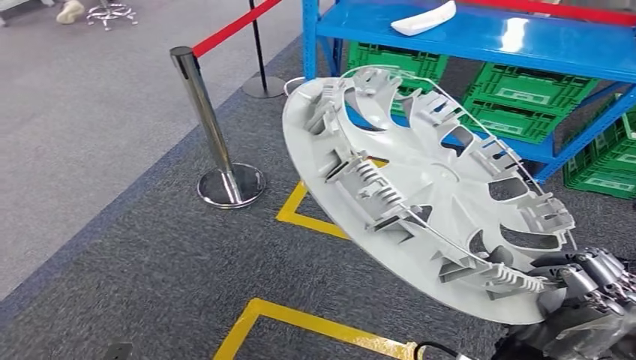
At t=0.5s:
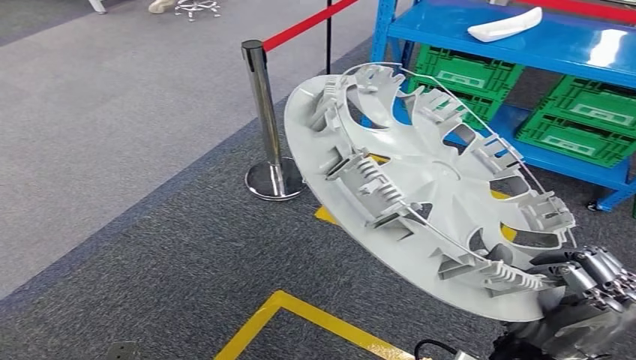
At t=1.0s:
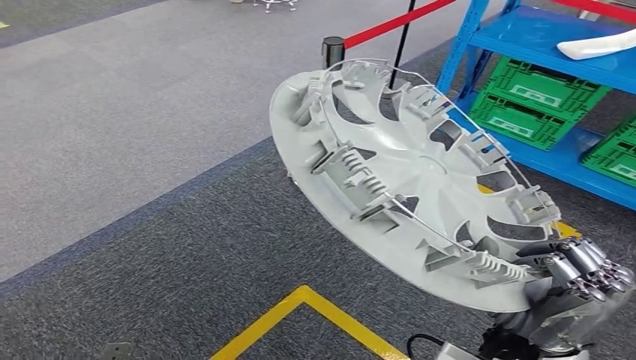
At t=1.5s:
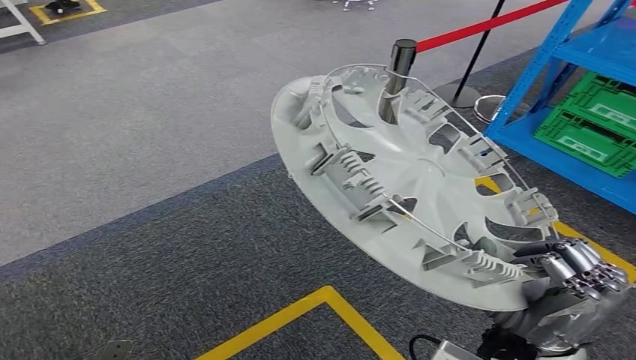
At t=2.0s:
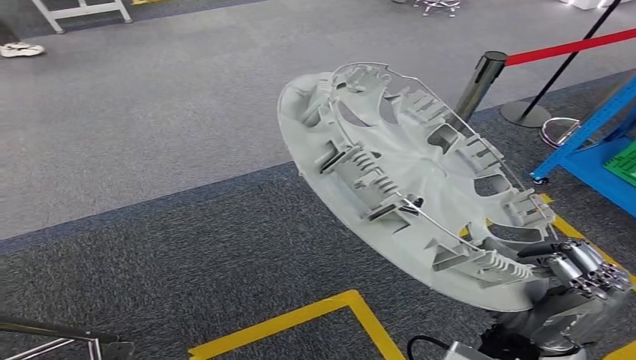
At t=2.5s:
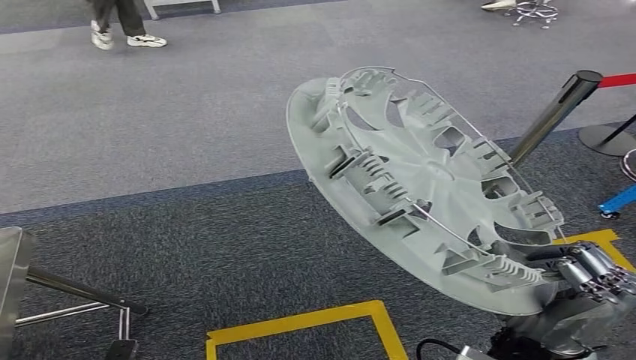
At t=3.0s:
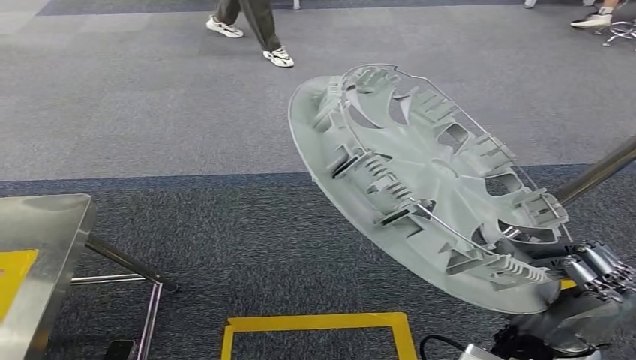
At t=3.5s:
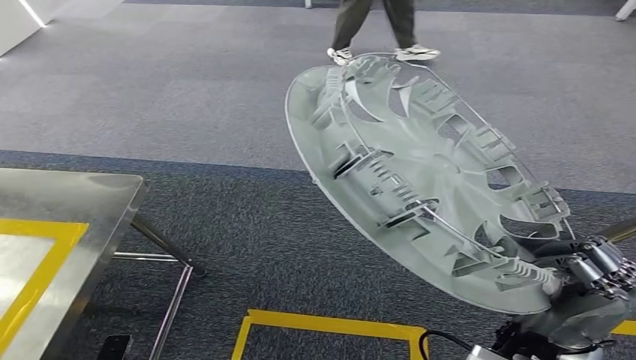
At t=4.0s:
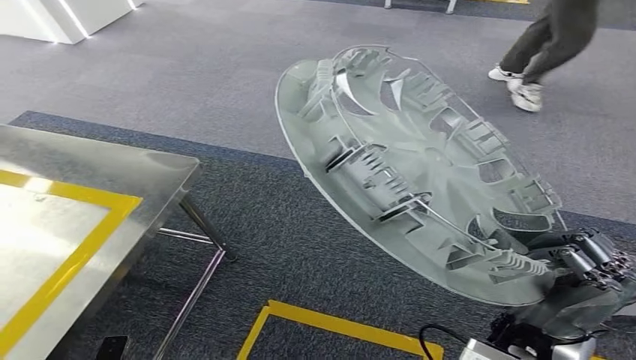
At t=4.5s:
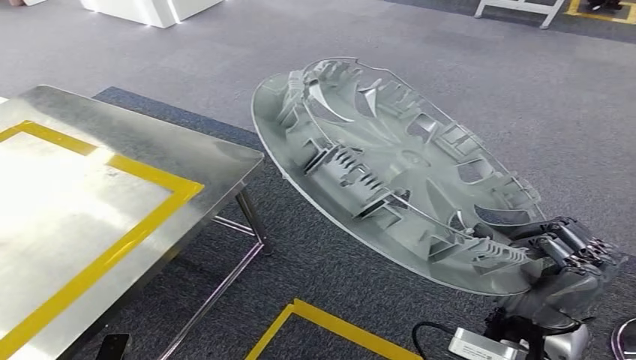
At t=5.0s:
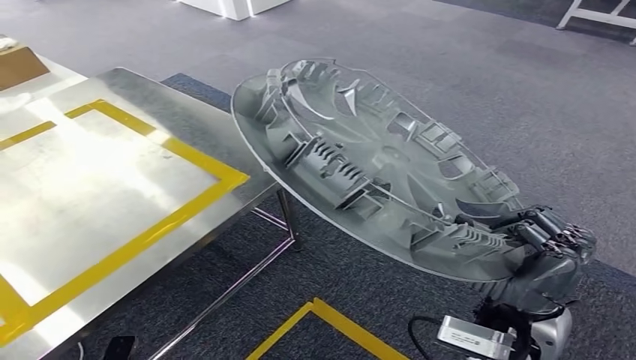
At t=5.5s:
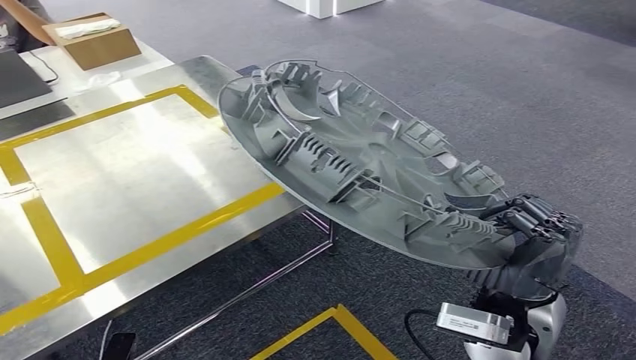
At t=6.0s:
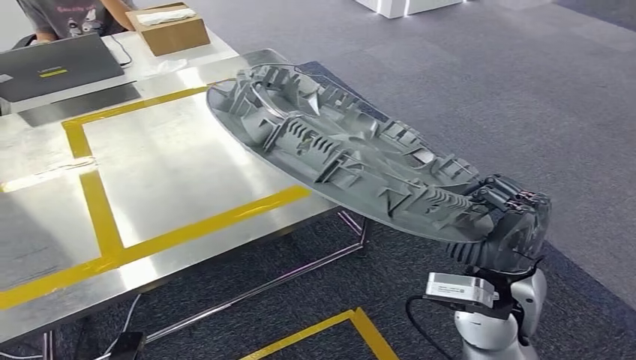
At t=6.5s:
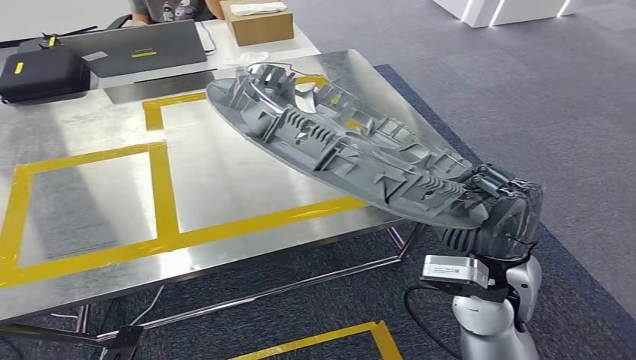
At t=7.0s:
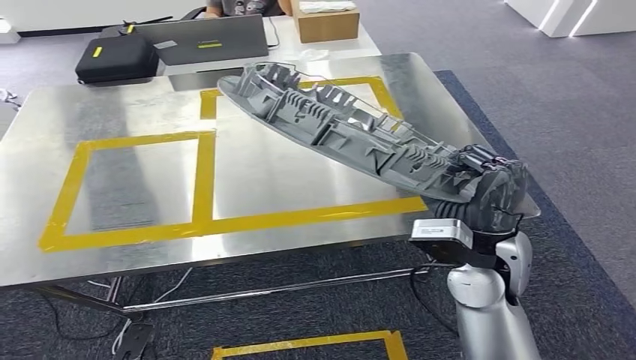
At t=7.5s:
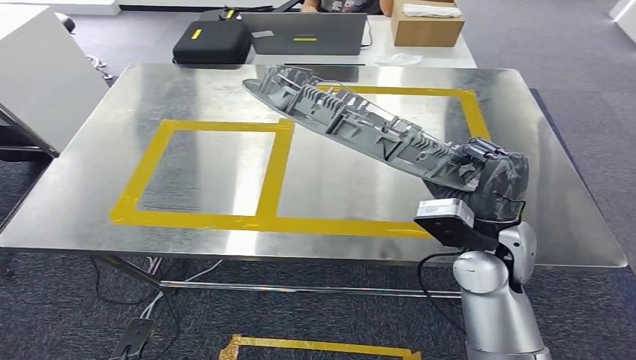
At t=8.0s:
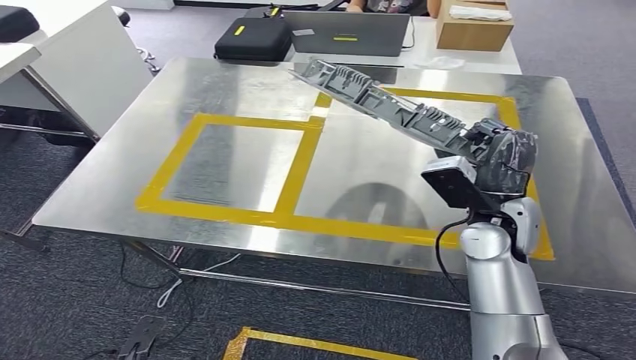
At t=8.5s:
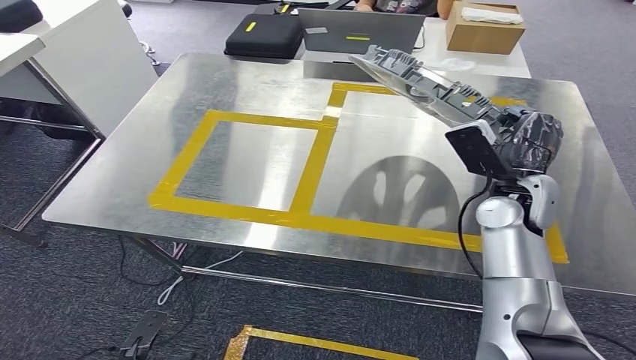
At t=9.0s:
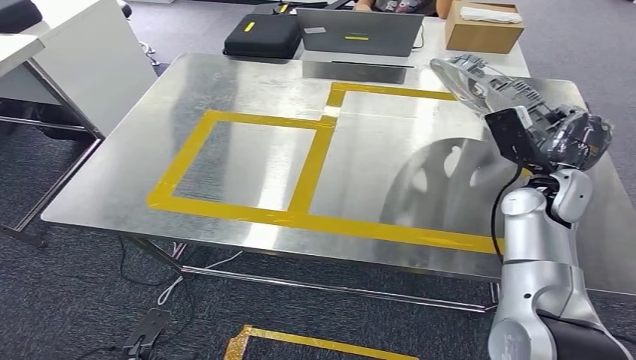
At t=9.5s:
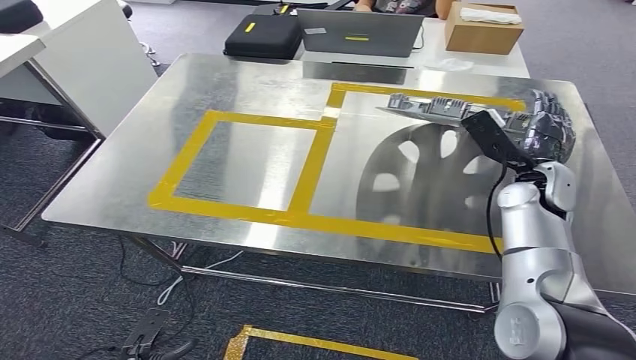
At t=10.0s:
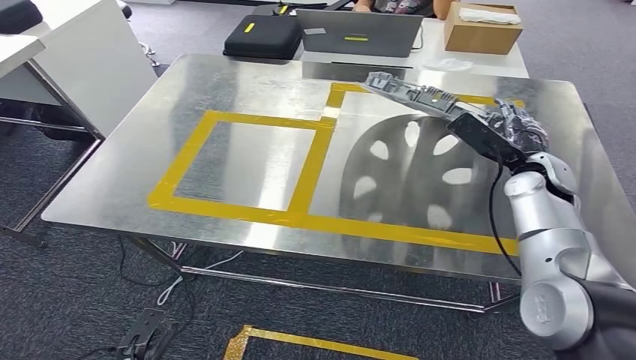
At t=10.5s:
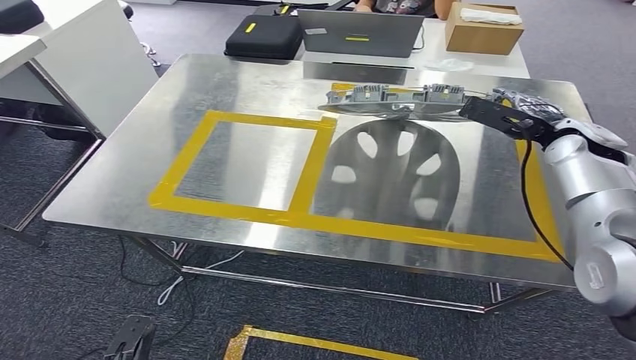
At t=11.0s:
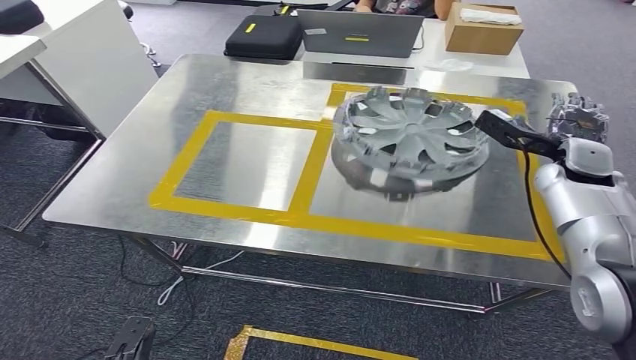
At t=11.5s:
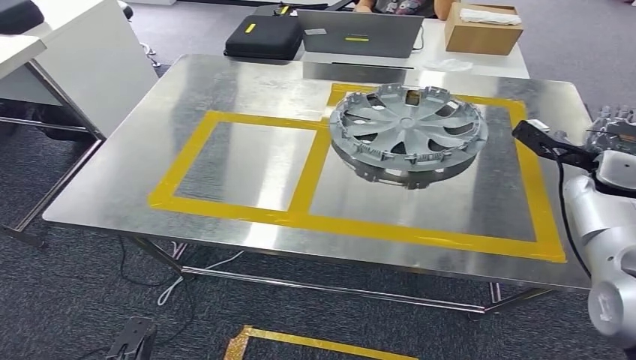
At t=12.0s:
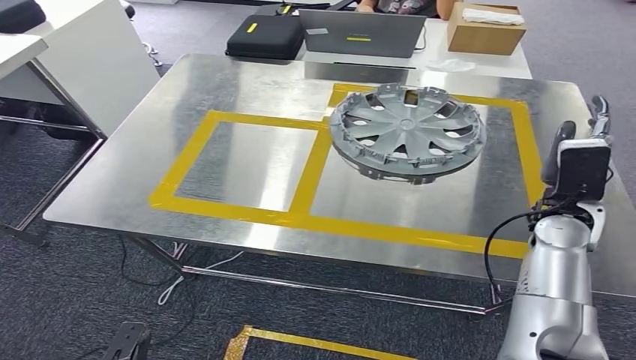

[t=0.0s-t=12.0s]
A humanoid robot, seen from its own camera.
Step, t=0.0s to t=7.5s: Move the small parts to the workbench.
Step, t=8.0s to t=12.0s: Insert the small parts into the corresponding holes on the workbench.

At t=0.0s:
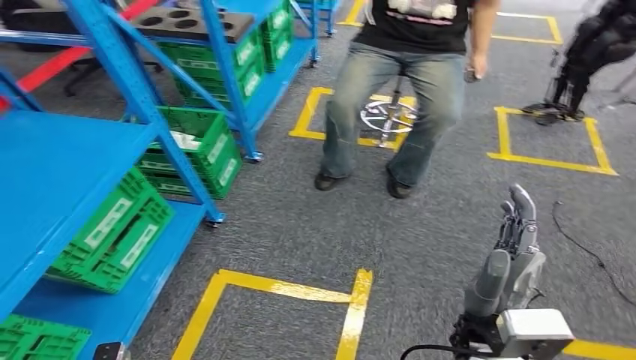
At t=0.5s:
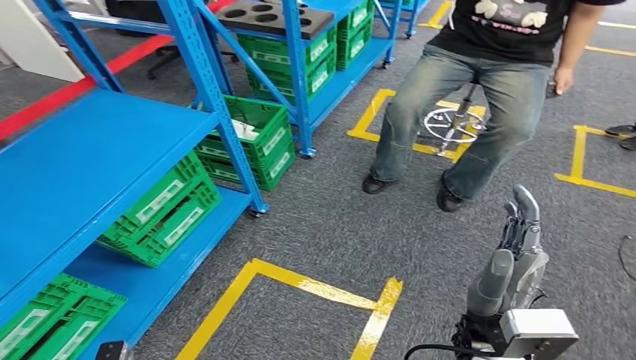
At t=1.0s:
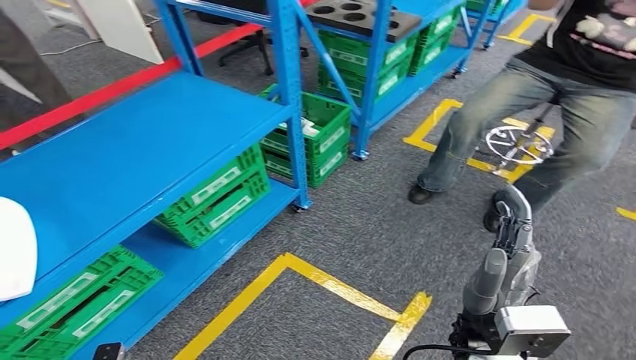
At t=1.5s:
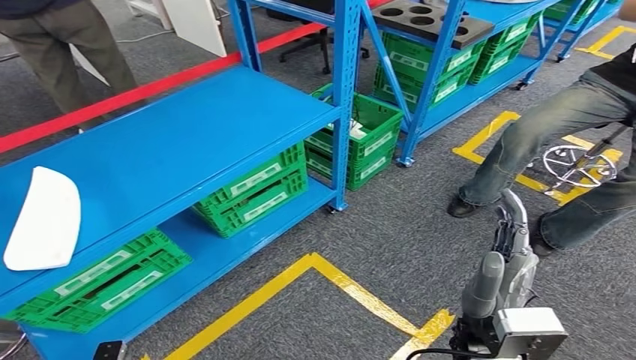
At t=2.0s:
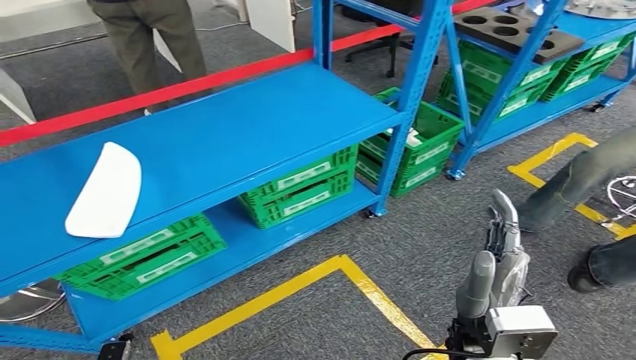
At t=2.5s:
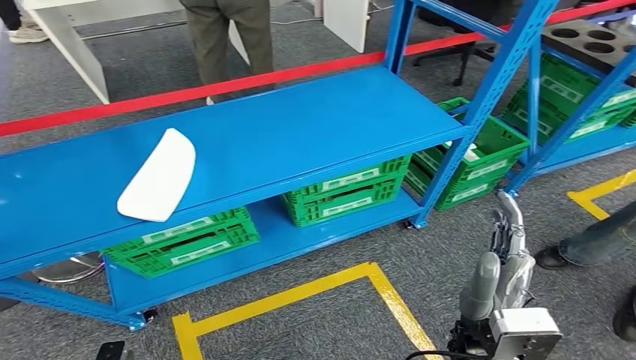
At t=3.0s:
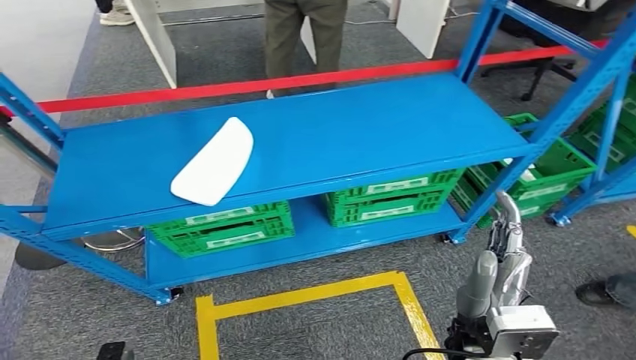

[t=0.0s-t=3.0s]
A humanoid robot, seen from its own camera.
Step, t=0.0s to t=3.0s: Move to the initial position at the workbench.
